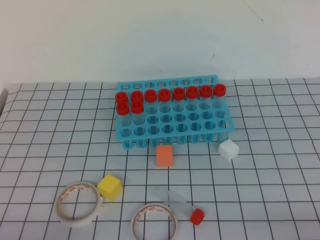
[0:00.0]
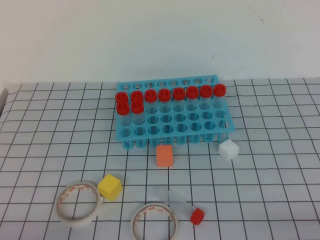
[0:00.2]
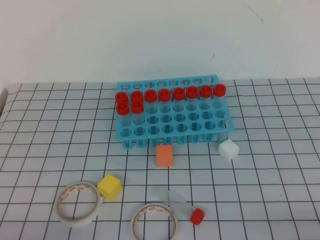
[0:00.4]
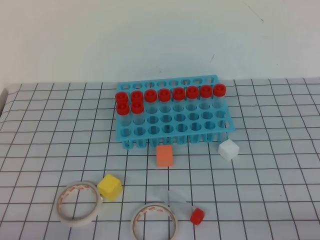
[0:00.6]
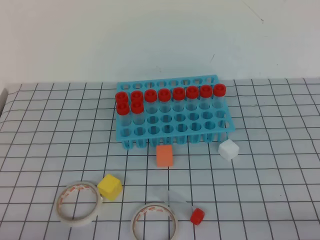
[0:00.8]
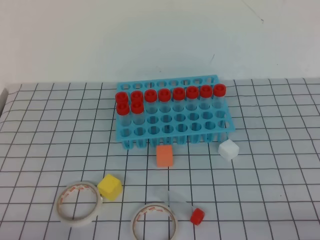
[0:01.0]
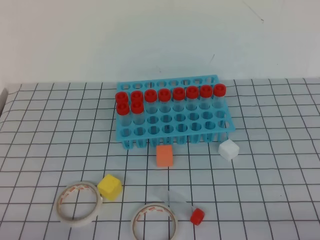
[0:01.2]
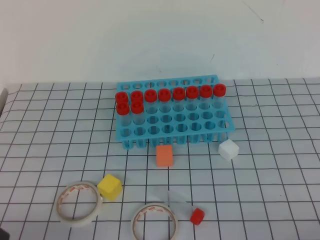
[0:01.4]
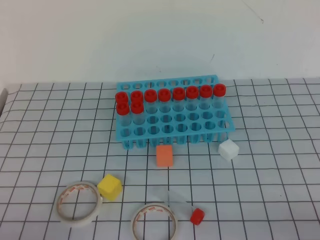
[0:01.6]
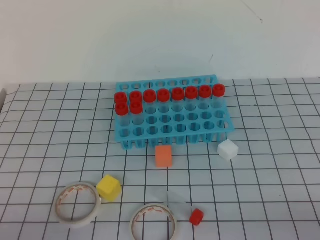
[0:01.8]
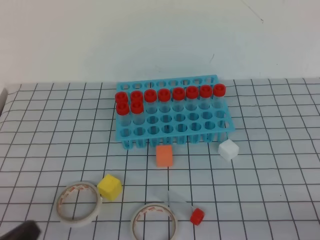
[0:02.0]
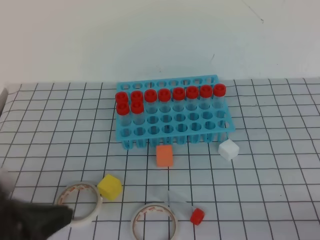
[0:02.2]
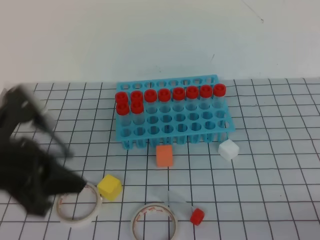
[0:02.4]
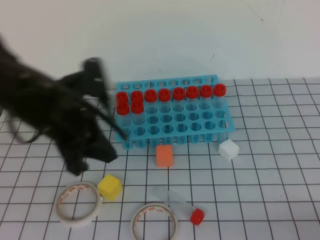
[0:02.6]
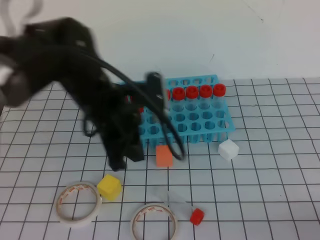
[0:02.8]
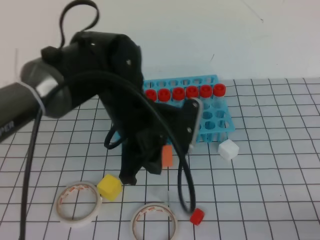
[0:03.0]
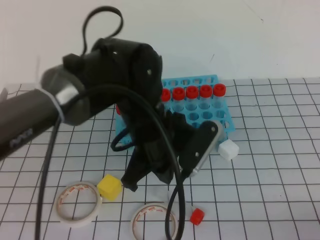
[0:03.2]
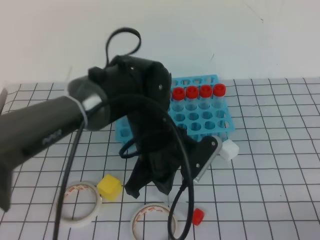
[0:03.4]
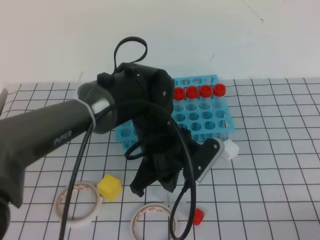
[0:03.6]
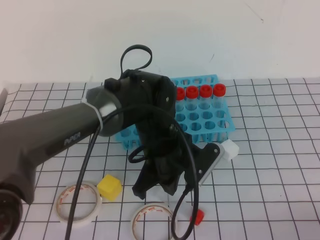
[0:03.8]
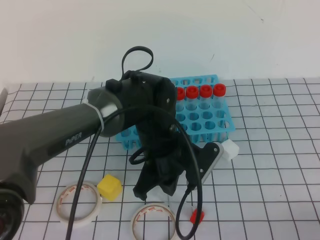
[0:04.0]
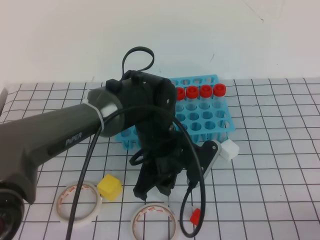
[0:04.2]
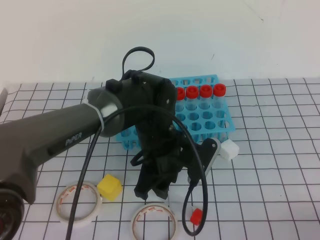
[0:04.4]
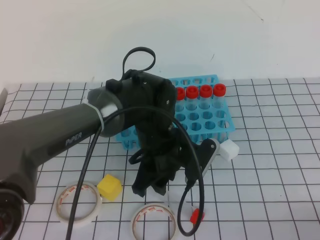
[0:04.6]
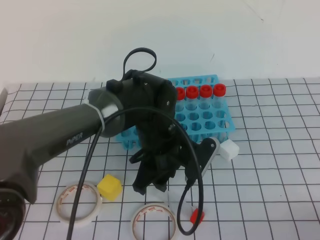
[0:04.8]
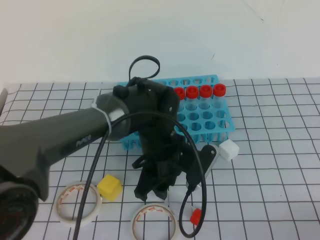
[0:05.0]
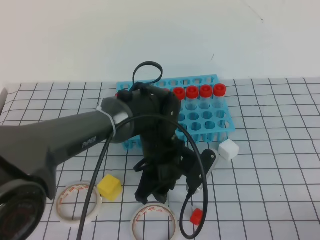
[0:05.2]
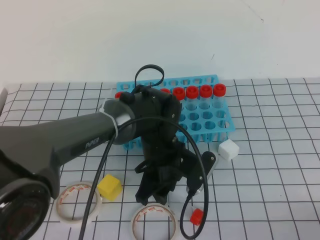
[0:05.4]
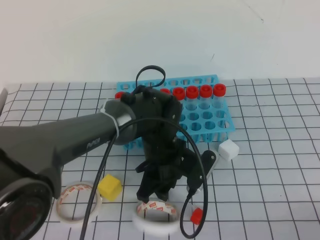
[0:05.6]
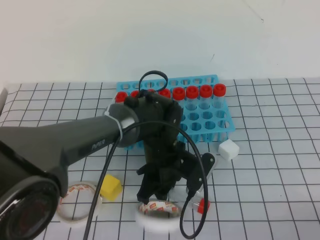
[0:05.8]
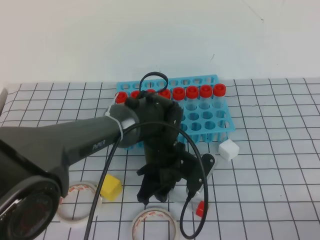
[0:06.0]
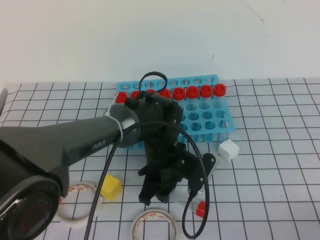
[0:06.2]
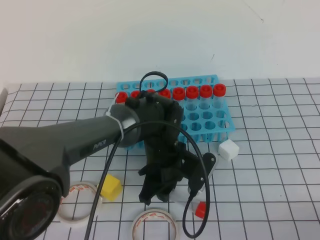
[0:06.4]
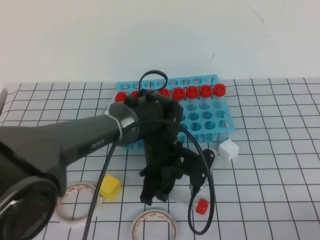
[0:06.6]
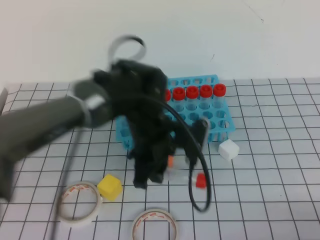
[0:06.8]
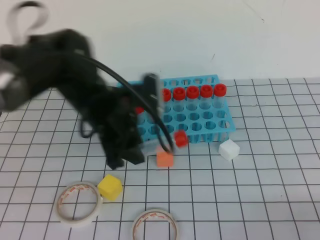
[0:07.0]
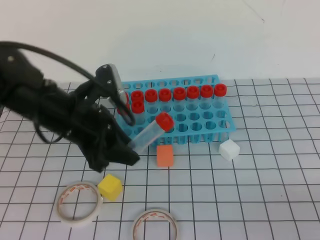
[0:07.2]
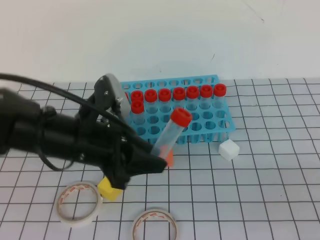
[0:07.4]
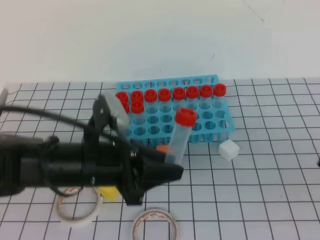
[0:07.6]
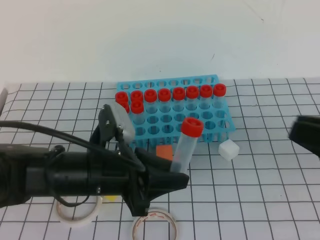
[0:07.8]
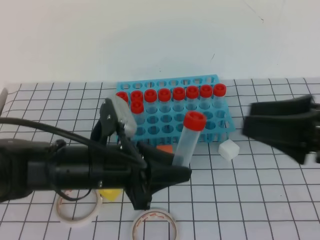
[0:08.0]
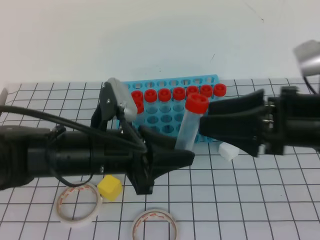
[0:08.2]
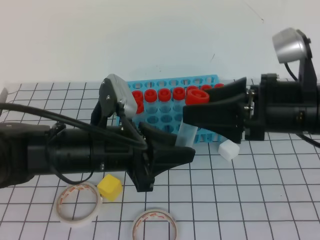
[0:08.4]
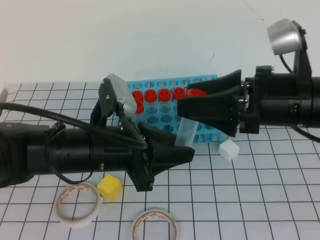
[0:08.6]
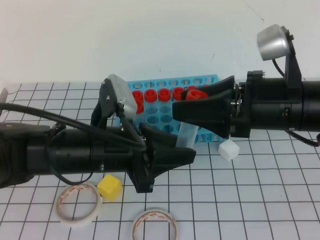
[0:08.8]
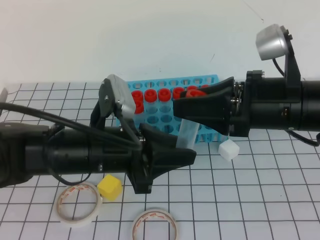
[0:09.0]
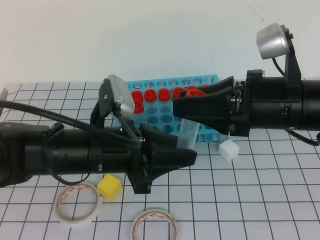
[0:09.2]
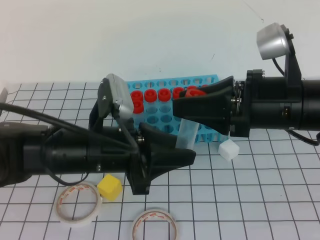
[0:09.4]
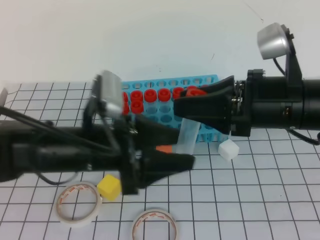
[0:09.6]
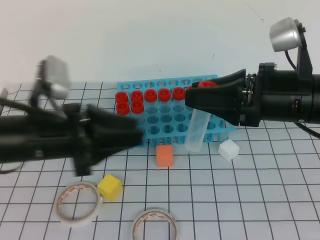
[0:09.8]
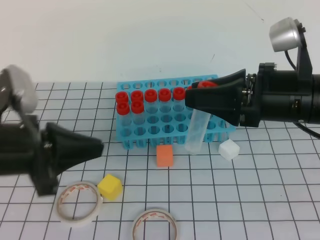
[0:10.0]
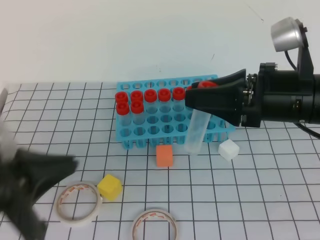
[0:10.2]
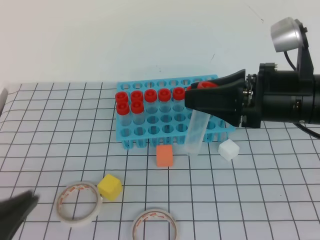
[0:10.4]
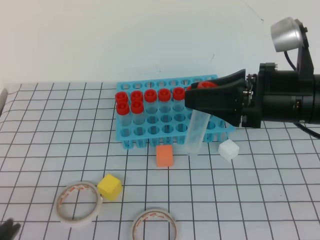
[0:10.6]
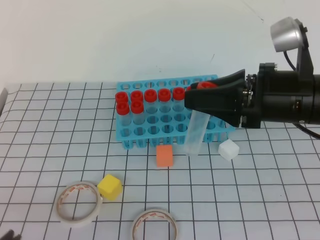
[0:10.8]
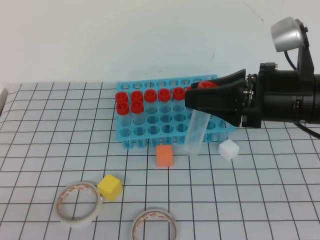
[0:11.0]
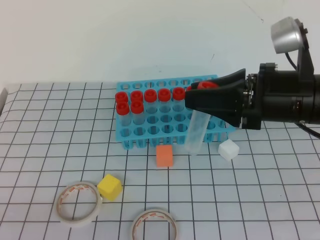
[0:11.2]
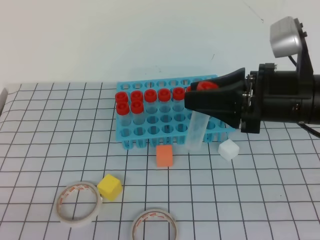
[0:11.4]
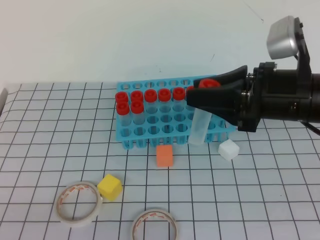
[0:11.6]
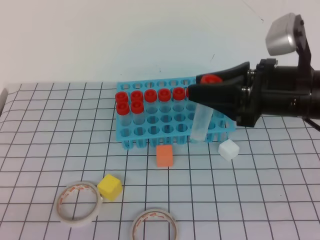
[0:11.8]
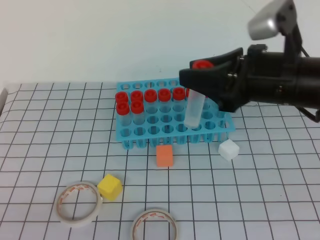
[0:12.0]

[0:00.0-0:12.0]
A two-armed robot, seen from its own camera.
0:01.6 to 0:03.0: The left gripper travels forward and to the right by some 30 cm.
0:03.0 to 0:04.4: The left gripper shifts about 10 cm downward, and opens up.
0:04.4 to 0:06.0: The left gripper heads downward, covering about 5 cm.
0:06.0 to 0:07.6: The left gripper shifts about 15 cm to the left, upward and backward, while the right gripper travels upward and forward by some 10 cm.
0:07.6 to 0:09.0: The right gripper goes some 20 cm forward and to the left, and opens.
0:09.0 to 0:10.4: The left gripper moves backward and to the left, approximately 20 cm, and closes.
0:10.4 to 0:12.0: The left gripper heads backward, covering roughly 10 cm.

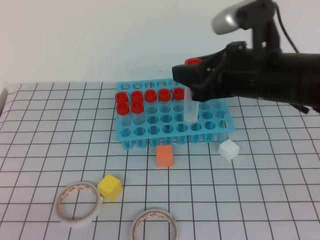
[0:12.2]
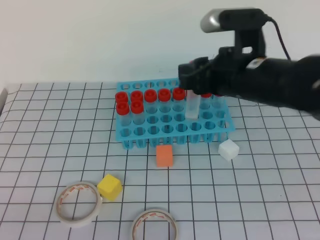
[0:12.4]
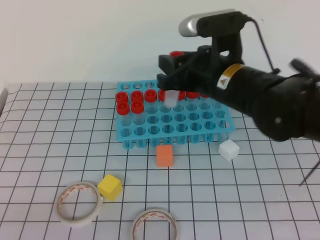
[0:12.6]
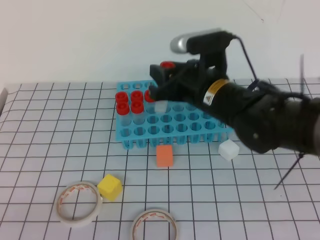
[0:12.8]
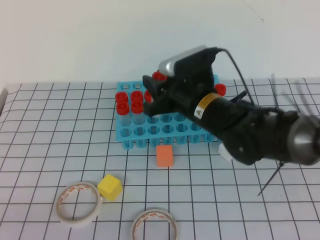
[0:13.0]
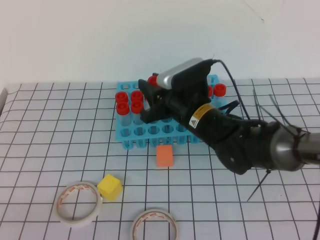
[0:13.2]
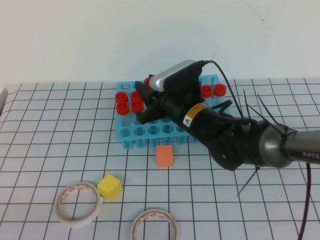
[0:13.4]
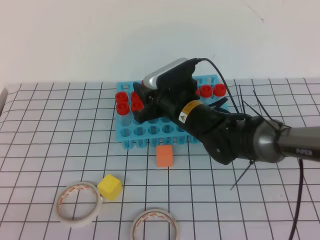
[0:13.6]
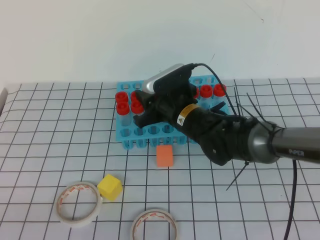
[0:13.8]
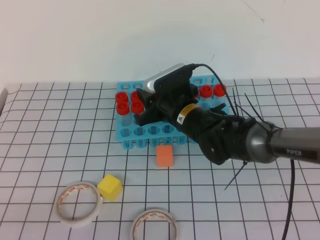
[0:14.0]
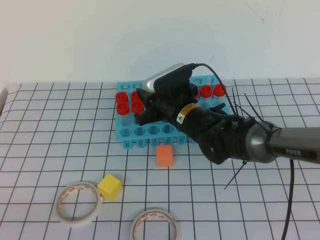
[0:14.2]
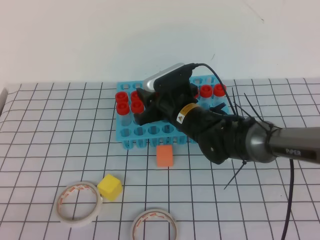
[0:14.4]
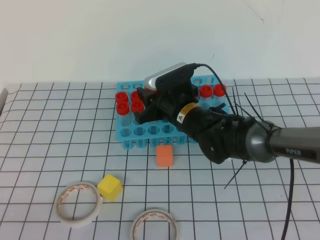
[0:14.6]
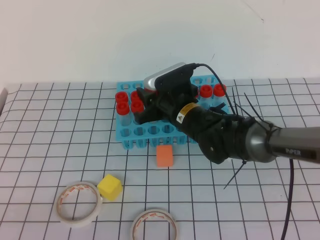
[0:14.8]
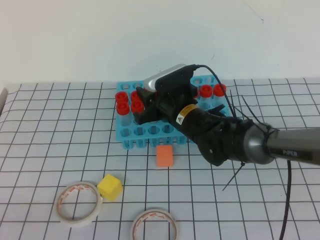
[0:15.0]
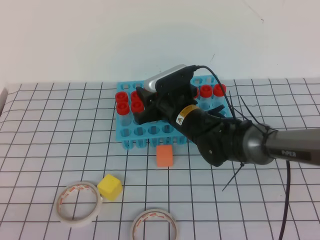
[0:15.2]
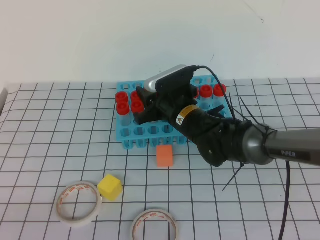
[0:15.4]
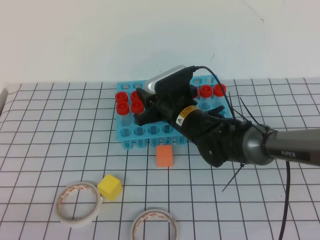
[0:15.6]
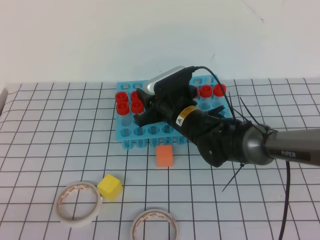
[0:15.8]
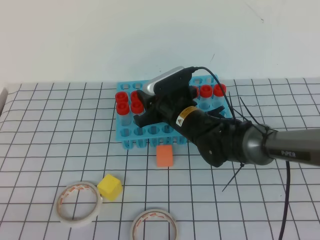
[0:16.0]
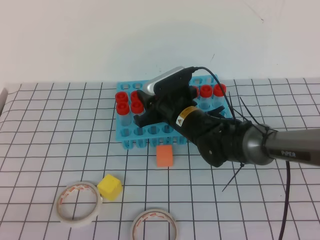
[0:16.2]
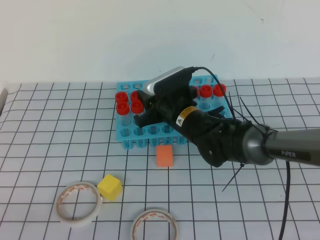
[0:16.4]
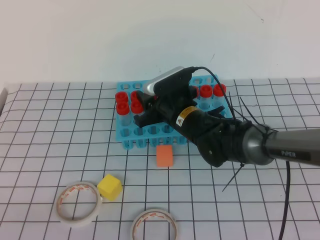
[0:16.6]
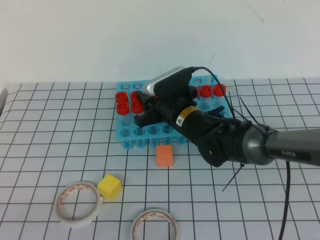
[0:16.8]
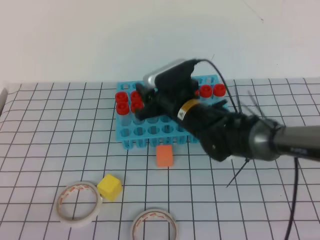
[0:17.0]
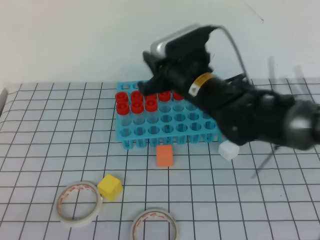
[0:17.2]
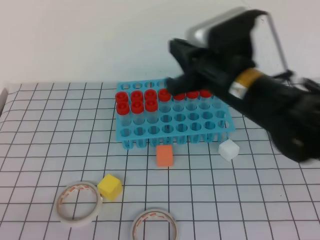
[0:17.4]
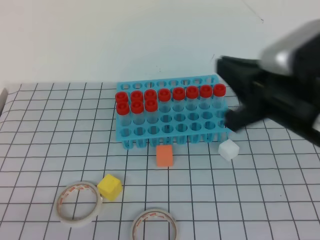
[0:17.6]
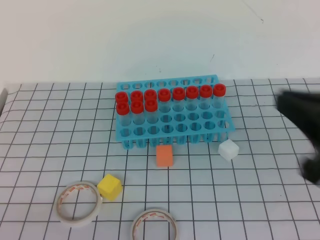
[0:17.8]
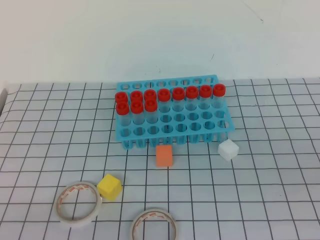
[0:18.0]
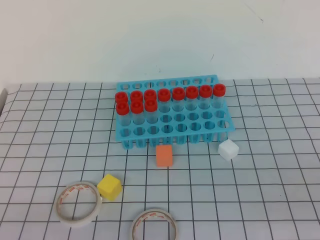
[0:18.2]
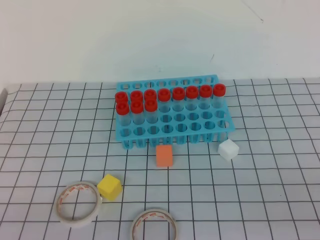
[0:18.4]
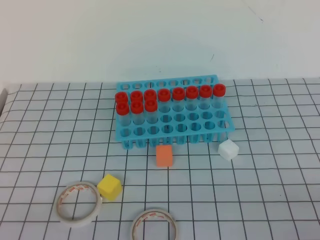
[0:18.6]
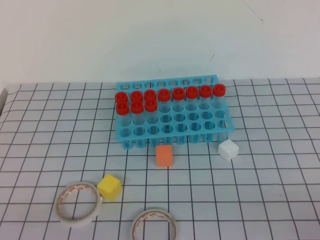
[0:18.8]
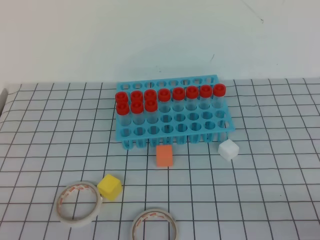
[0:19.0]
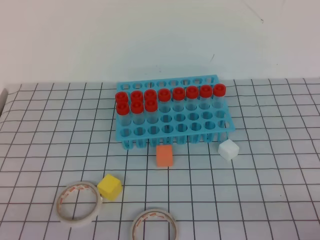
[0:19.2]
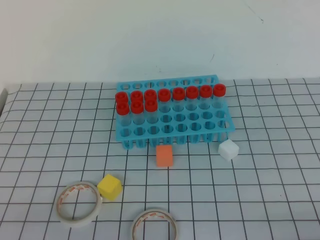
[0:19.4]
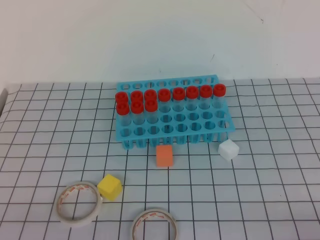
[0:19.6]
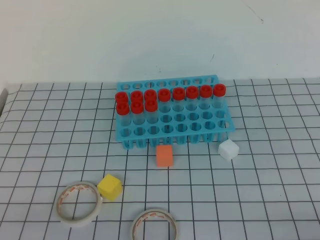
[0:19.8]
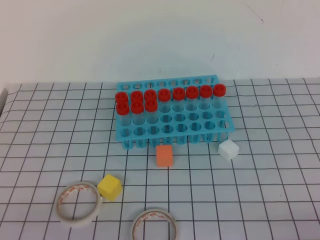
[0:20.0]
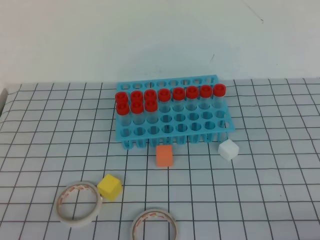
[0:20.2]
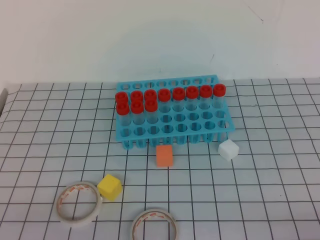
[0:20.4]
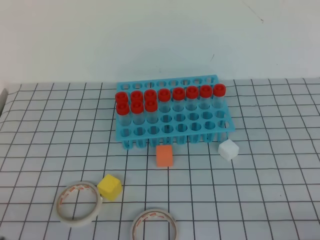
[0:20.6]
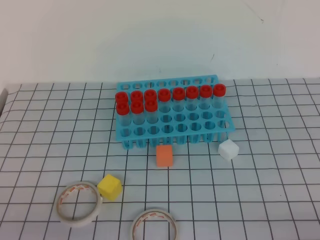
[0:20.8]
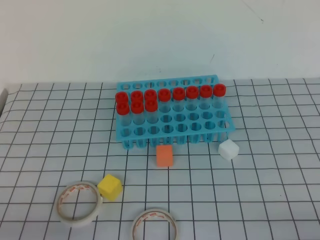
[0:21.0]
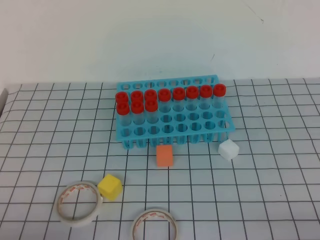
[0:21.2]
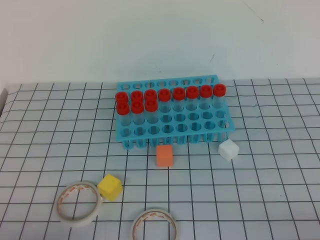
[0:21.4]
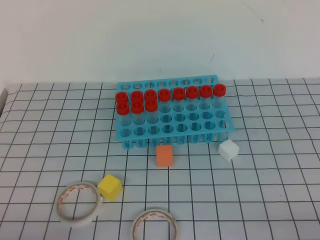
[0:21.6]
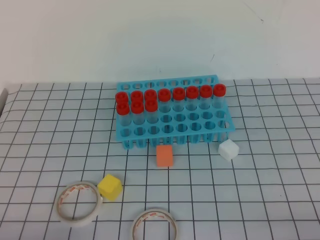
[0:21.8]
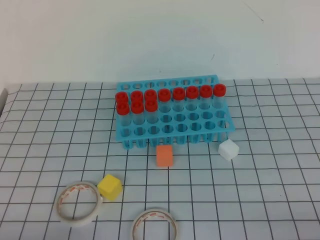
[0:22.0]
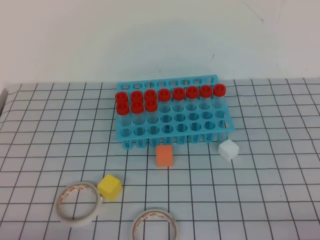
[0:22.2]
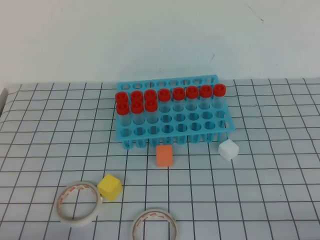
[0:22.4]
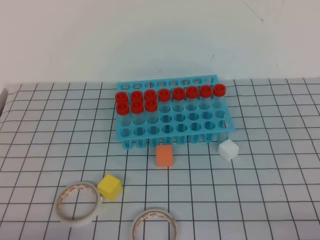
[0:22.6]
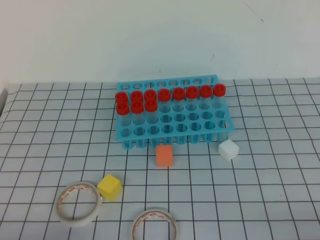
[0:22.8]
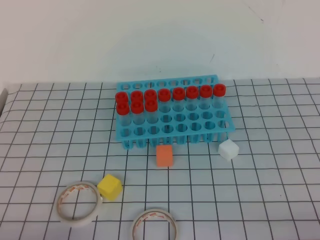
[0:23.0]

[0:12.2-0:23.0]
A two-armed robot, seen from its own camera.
0:12.2 to 0:13.8: The right gripper shifts approximately 20 cm downward, to the left and forward.
0:13.8 to 0:15.2: There are only small adjustments of the grippers.
0:15.2 to 0:16.8: Both grippers stay put.
0:16.8 to 0:18.4: The right gripper moves backward and to the right, about 40 cm, and closes up.
